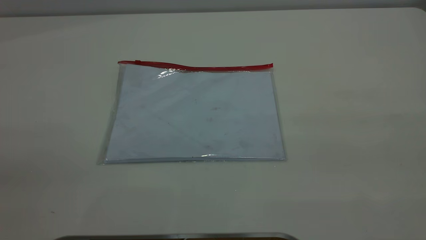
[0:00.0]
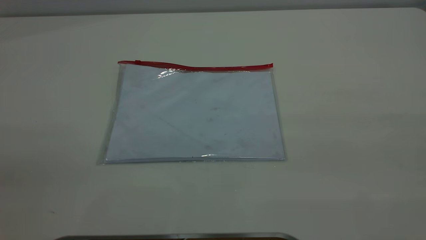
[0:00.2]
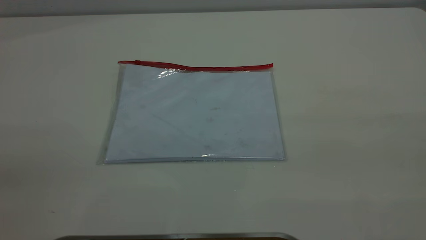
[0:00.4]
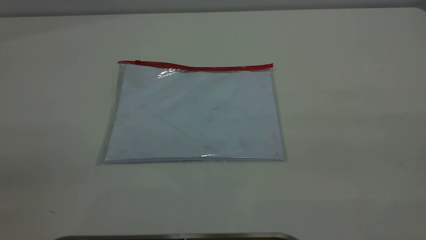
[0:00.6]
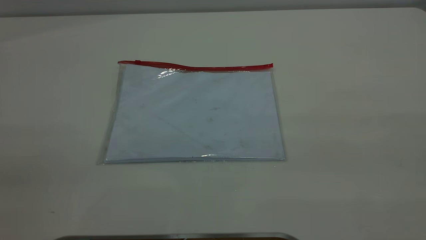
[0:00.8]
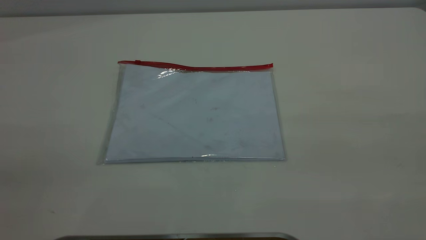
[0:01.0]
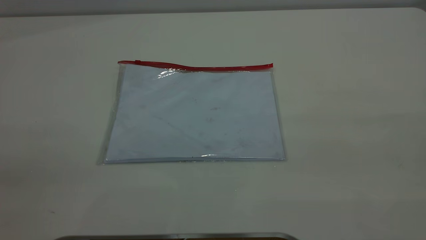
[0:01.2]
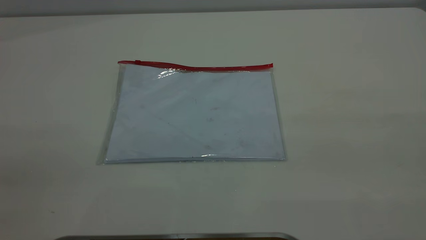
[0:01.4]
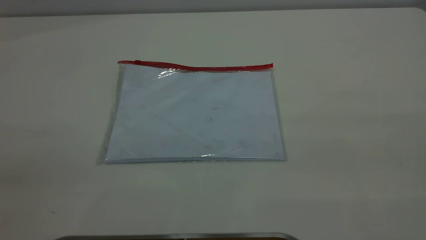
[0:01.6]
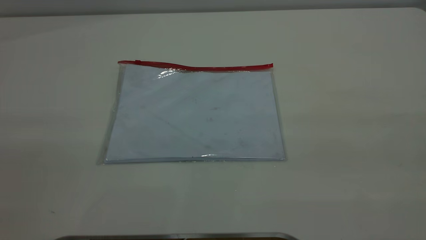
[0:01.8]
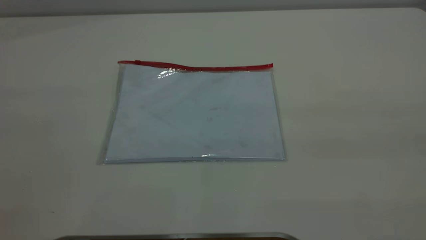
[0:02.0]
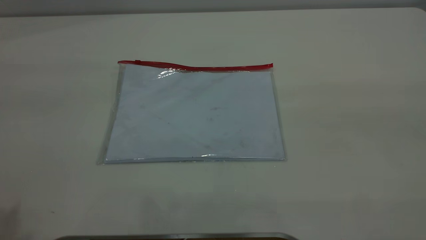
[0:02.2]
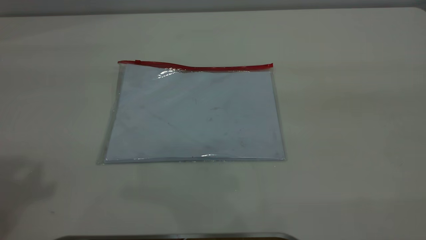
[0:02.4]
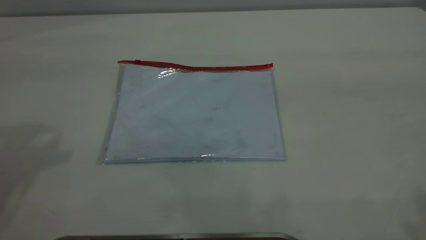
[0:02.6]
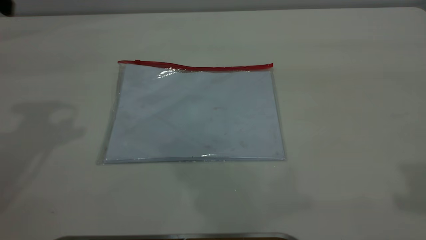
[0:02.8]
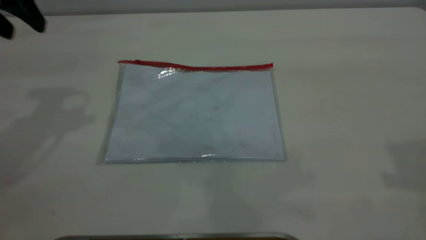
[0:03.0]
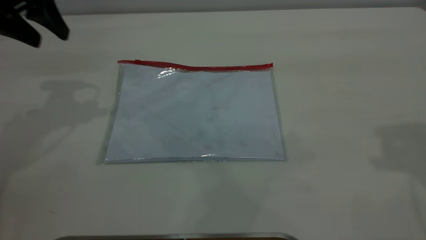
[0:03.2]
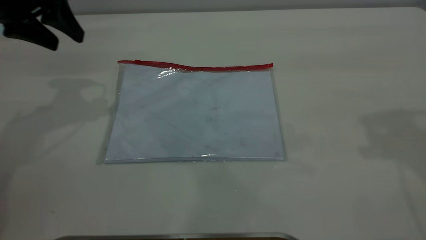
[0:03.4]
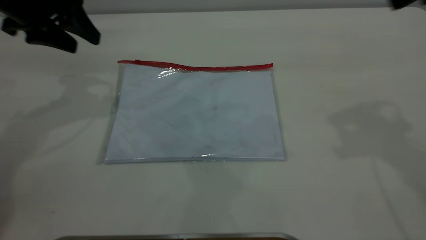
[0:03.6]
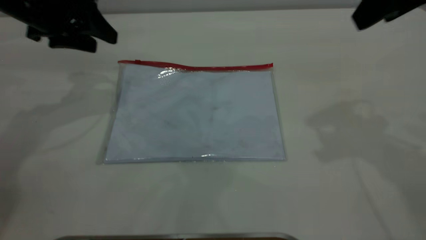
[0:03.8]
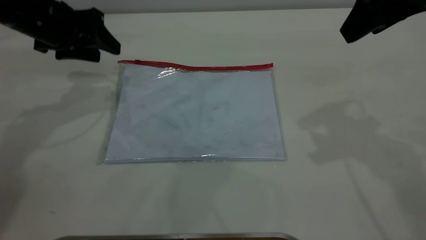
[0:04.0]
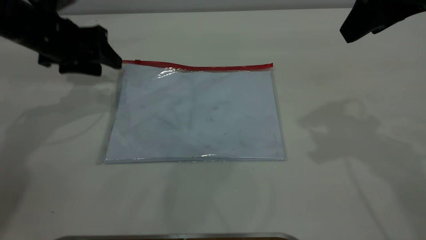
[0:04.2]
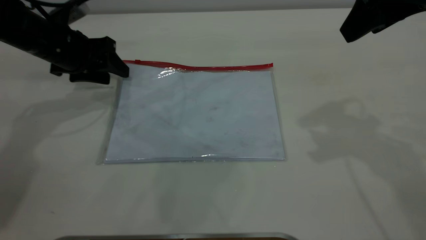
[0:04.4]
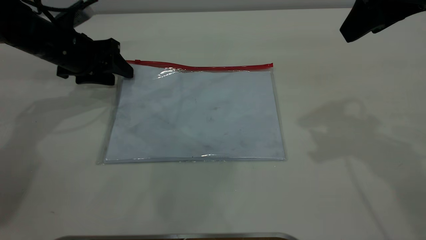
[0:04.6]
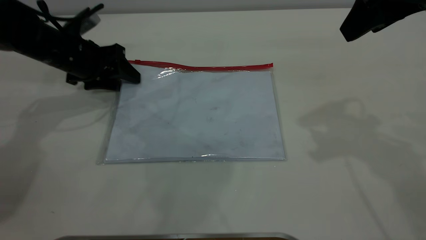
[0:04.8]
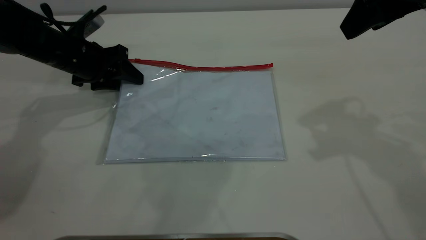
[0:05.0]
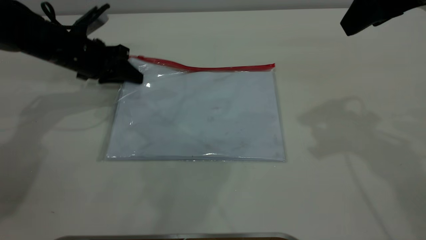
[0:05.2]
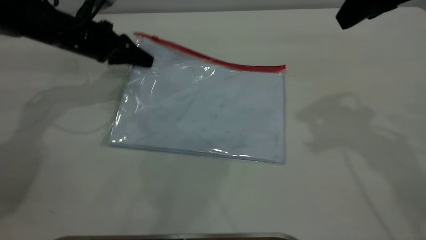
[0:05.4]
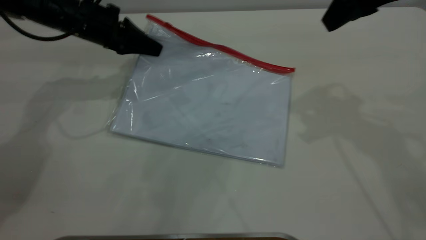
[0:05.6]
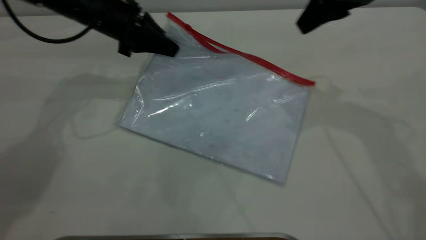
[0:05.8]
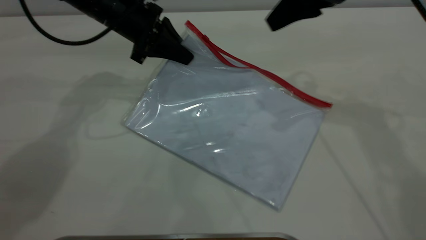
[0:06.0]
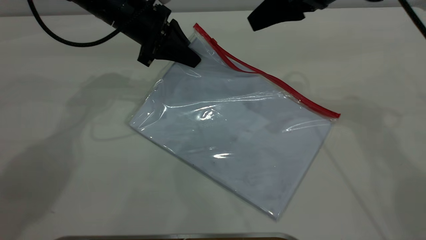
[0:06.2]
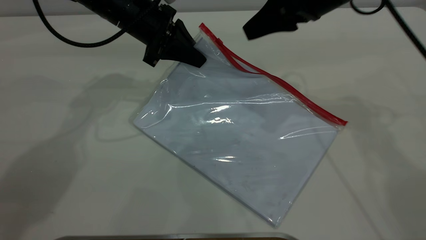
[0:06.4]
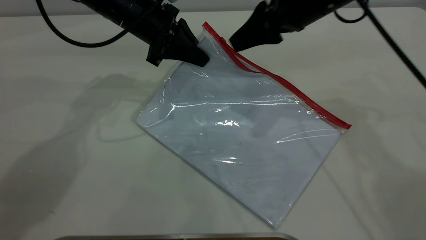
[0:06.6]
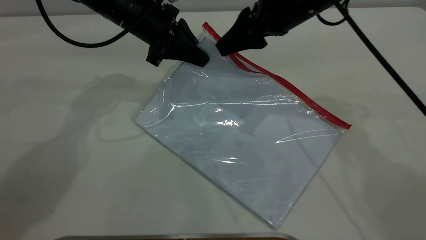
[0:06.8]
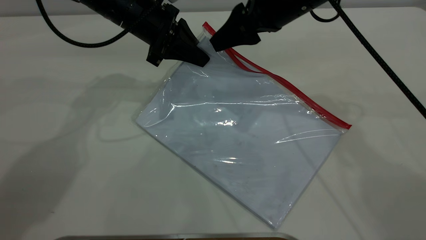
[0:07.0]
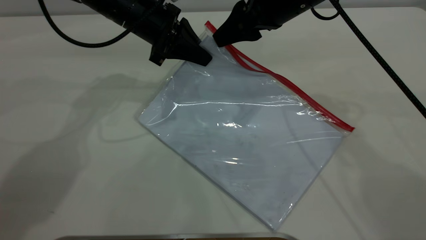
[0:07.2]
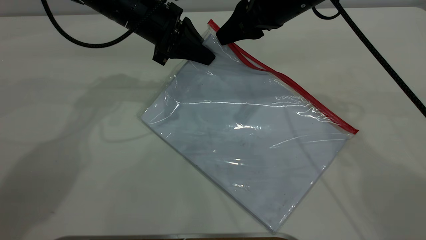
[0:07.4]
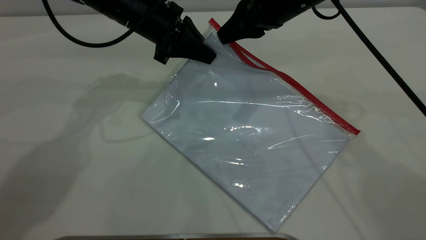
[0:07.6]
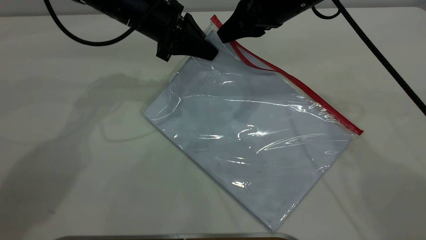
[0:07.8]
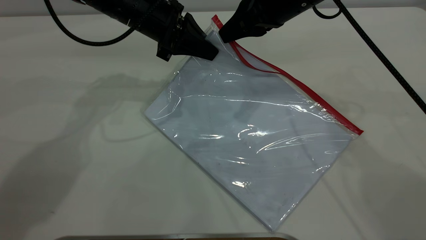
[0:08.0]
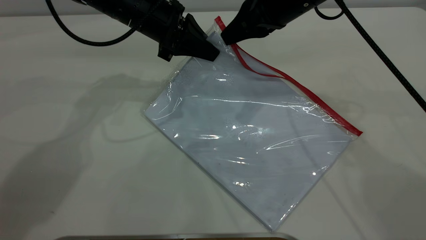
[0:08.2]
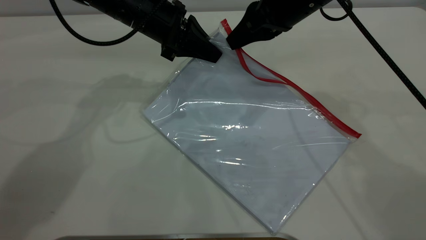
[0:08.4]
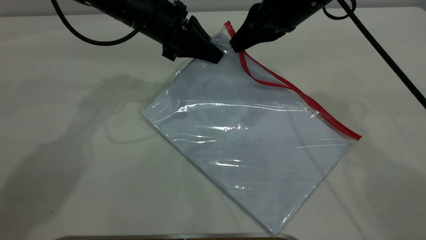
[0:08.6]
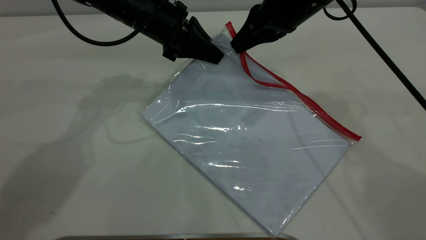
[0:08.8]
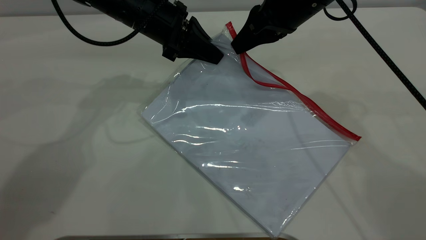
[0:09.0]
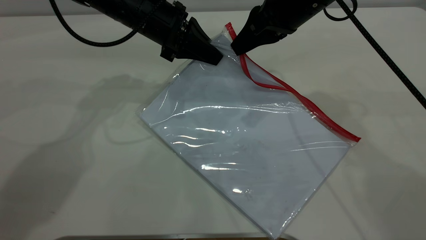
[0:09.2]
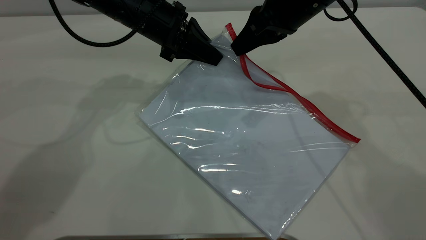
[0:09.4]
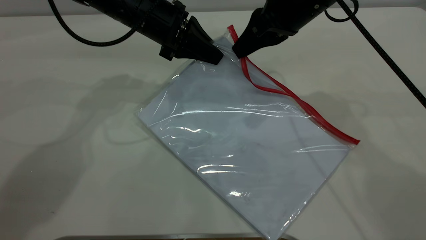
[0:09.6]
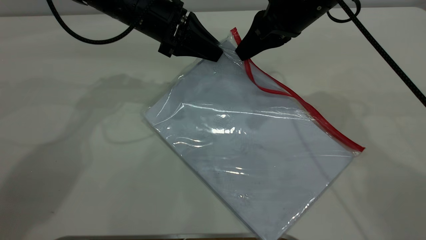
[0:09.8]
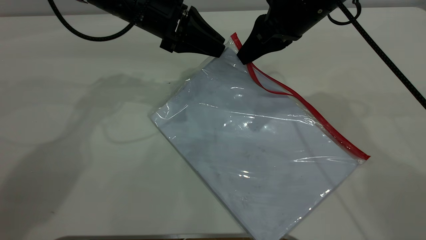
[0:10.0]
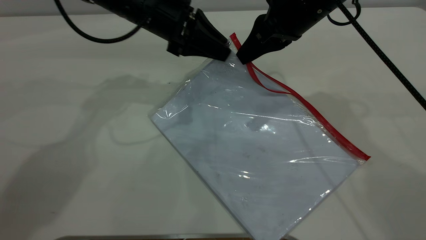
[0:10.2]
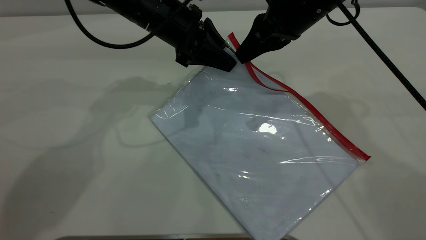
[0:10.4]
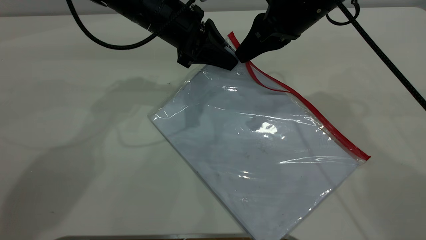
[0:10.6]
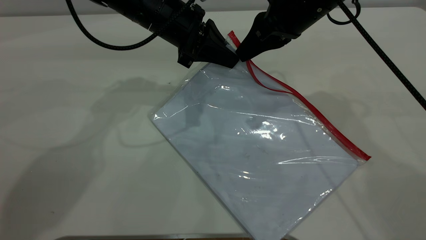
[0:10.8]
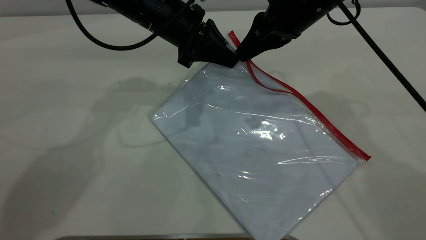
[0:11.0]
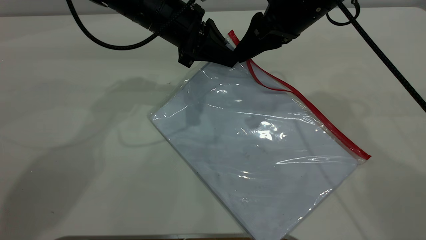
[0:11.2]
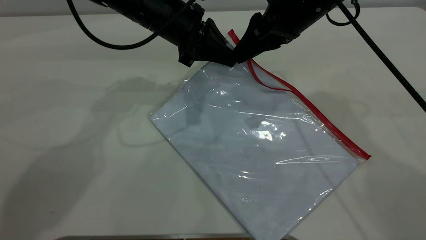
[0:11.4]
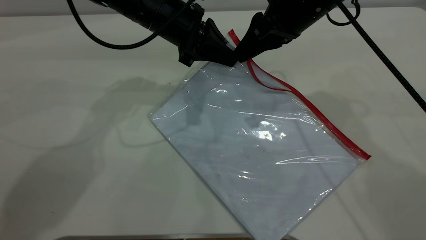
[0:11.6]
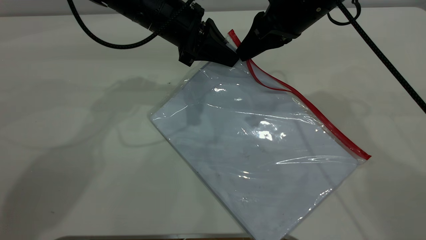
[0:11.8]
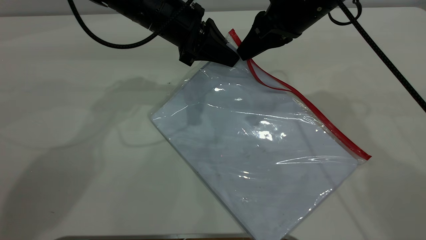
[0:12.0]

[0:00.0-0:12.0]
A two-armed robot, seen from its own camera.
Step, 0.0 to 5.4 s: Pick up the transparent plastic bag with the left gripper.
0.0 to 1.6 s: Both grippers stay about where they are.
1.6 to 3.0 s: The left gripper travels forward by roughly 35 cm.
3.0 to 4.4 s: The left gripper shifts roughly 15 cm downward, while the right gripper travels forward, to the left and downward by about 15 cm.
4.4 to 6.0 s: The right gripper shifts roughly 10 cm forward; the left gripper is displaced to the right by approximately 10 cm, and closes its fingers.
6.0 to 7.6 s: The right gripper is displaced to the left by some 5 cm, and closes.
7.6 to 9.0 s: The grippers make only small movements.
9.0 to 10.4 s: The left gripper opens its fingers.
10.4 to 12.0 s: The left gripper closes; the right gripper opens and closes again.

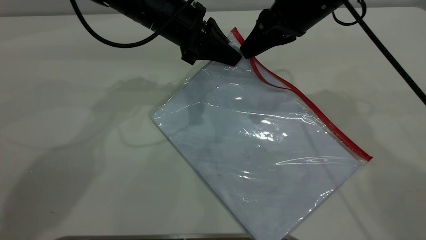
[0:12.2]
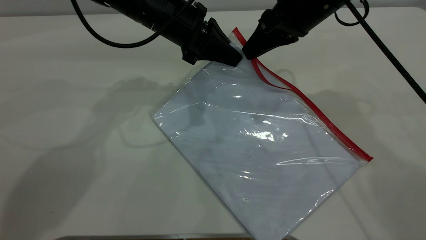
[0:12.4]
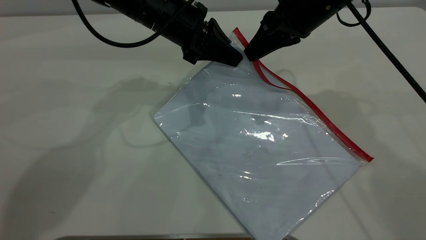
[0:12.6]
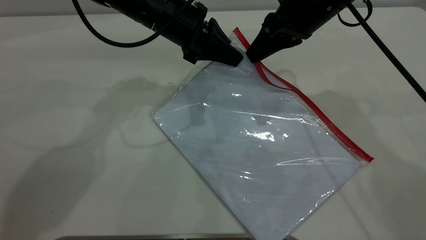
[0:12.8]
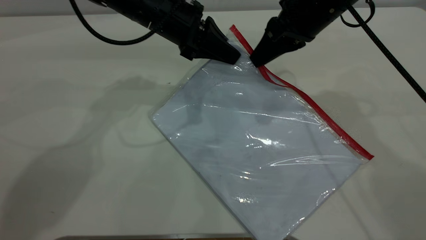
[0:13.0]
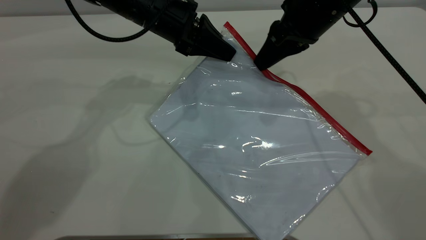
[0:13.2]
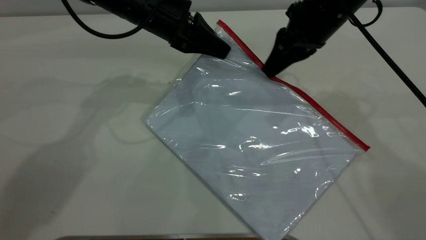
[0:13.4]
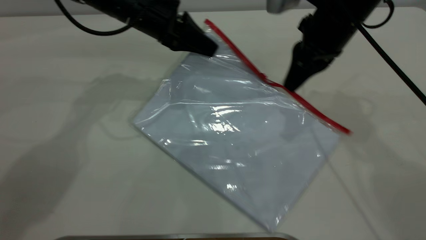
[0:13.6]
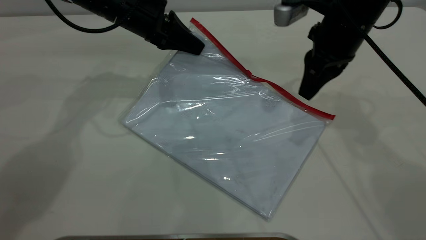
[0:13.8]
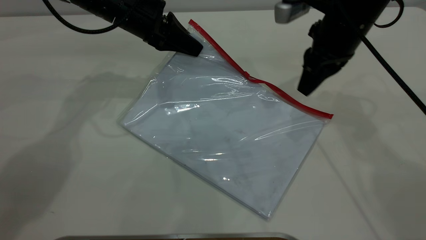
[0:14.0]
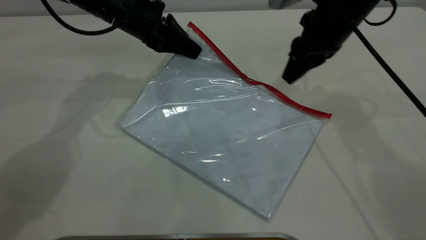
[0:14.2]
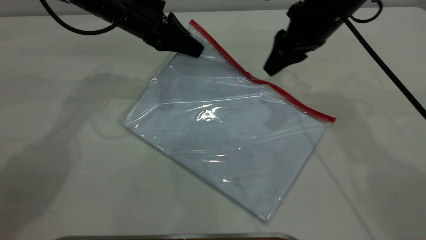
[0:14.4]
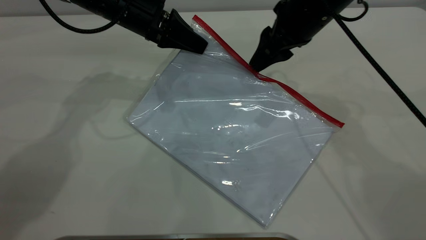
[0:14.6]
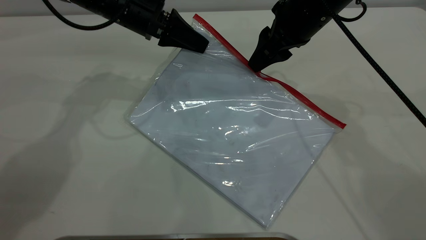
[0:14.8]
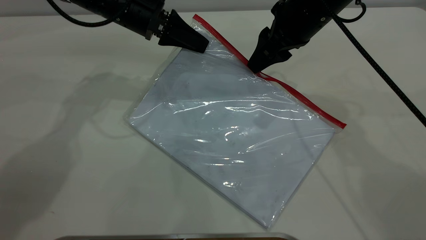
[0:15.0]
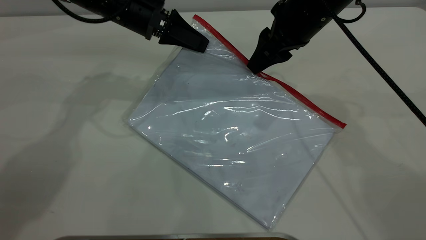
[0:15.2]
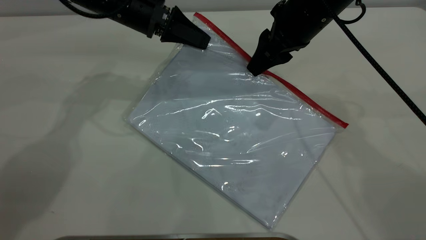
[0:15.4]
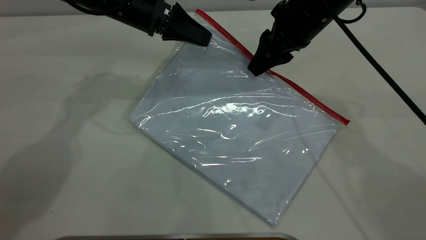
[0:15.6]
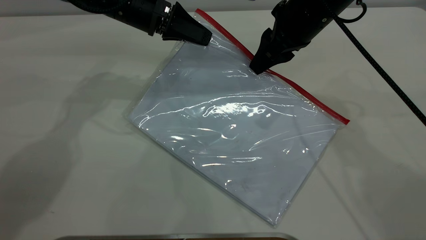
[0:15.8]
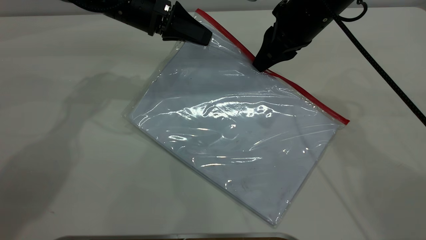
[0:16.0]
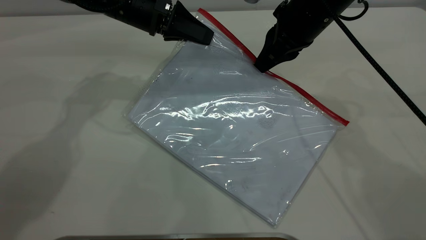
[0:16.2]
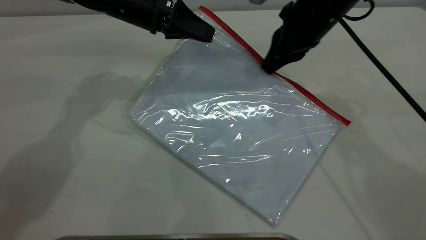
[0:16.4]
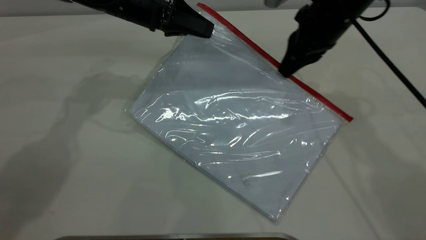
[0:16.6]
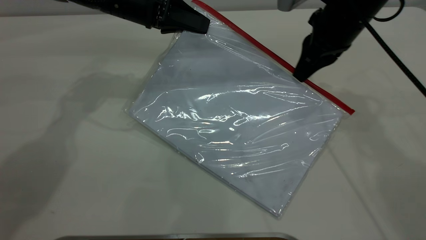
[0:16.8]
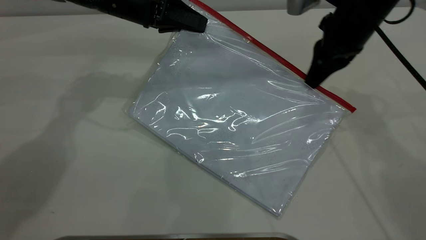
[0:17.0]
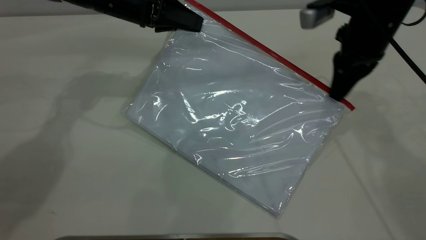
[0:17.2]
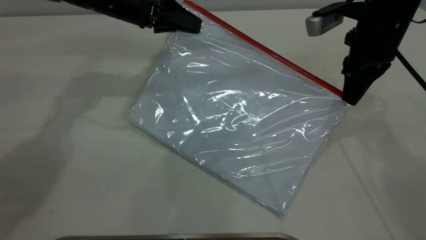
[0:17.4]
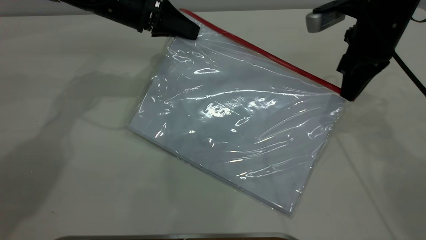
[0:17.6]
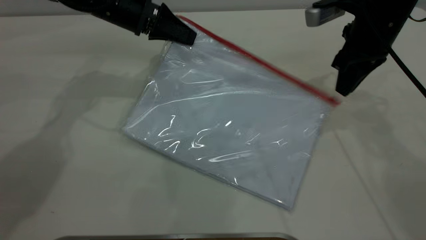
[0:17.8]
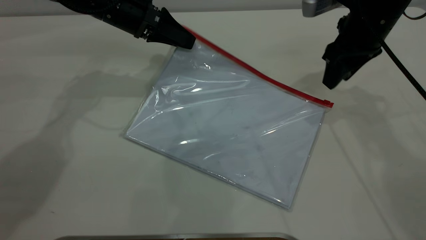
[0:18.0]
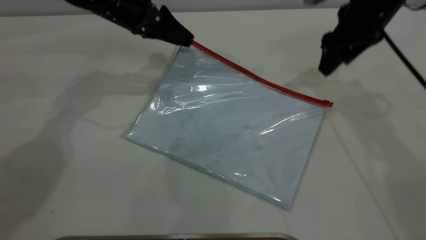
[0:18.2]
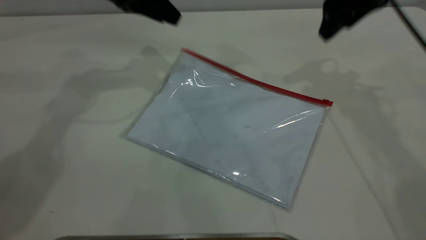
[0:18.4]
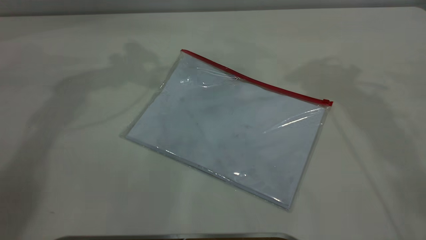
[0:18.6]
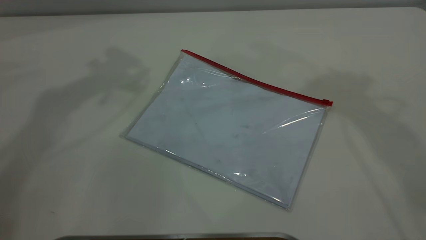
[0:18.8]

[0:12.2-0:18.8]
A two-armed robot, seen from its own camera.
Step, 12.2 to 17.8 s: Pulling up the zipper on the transparent plastic bag with the right gripper to close it.
Step, 18.0 to 18.4 s: Place the transparent plastic bag.
12.2 to 13.8 s: The left gripper is displaced to the left by some 5 cm.
13.8 to 15.4 s: The right gripper opens up.
15.4 to 17.2 s: The right gripper heads to the right, covering roughly 10 cm, and closes.
17.2 to 18.8 s: The grippers both shift upward by about 25 cm. The left gripper opens up. The right gripper opens its fingers.
